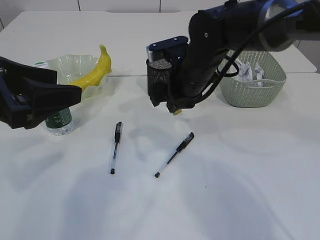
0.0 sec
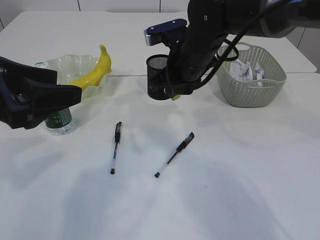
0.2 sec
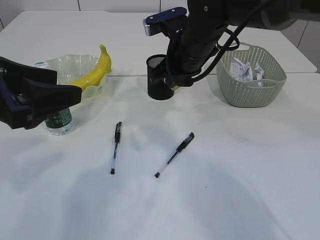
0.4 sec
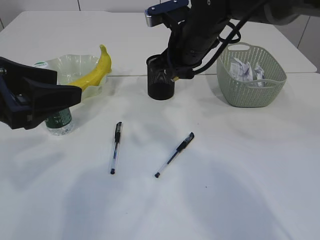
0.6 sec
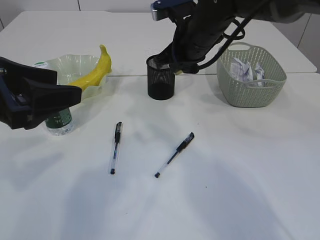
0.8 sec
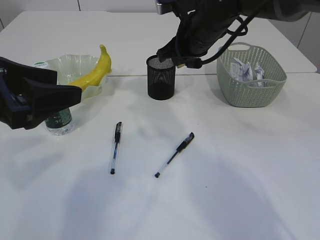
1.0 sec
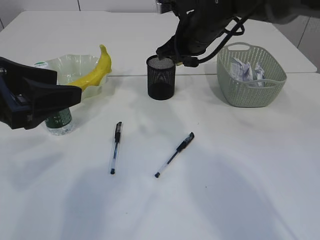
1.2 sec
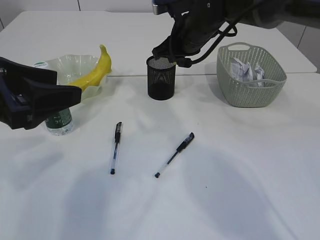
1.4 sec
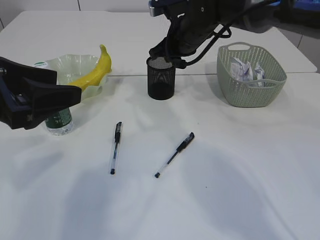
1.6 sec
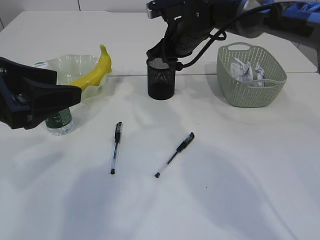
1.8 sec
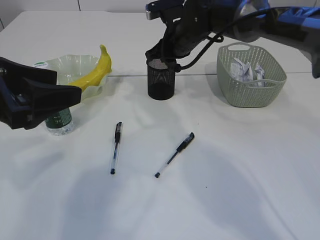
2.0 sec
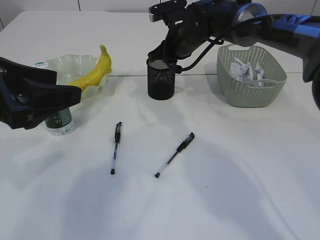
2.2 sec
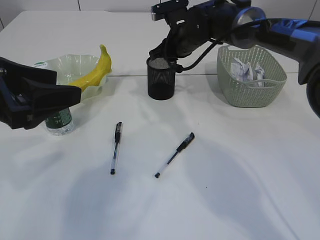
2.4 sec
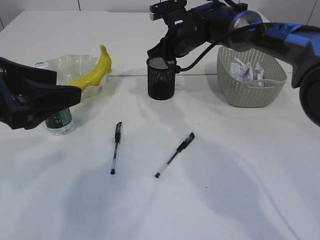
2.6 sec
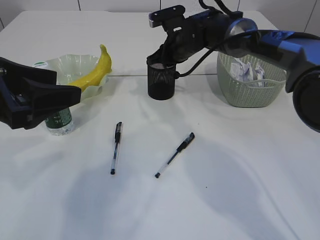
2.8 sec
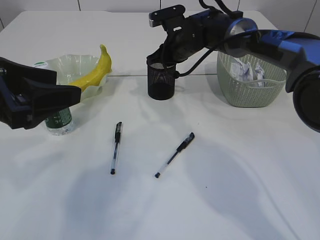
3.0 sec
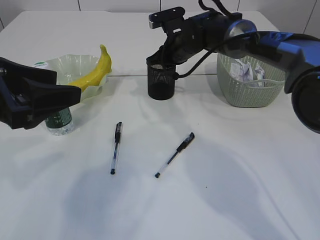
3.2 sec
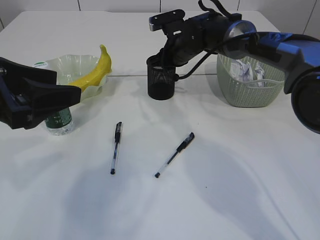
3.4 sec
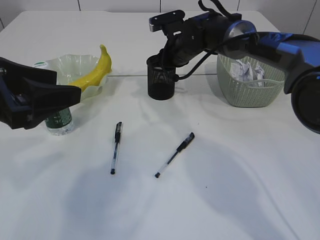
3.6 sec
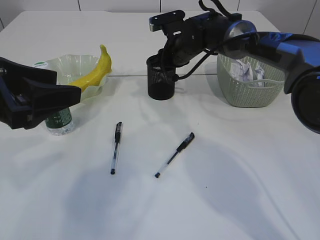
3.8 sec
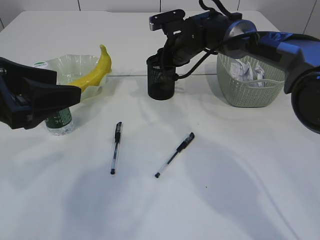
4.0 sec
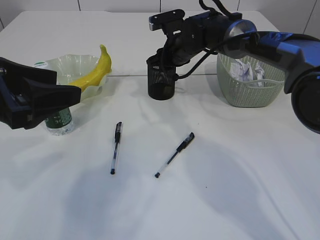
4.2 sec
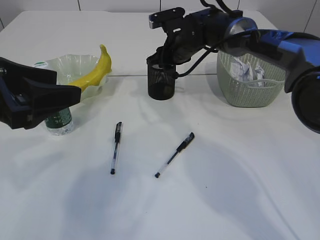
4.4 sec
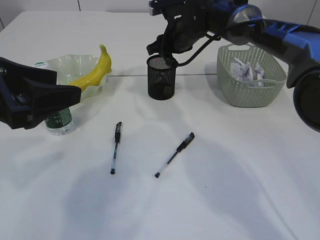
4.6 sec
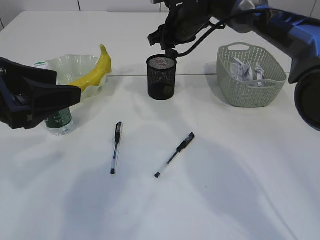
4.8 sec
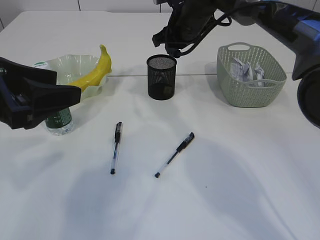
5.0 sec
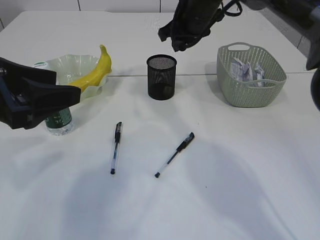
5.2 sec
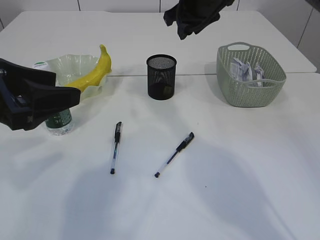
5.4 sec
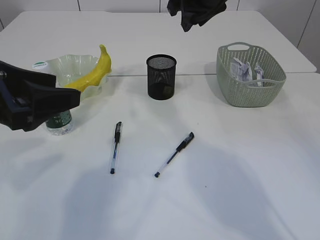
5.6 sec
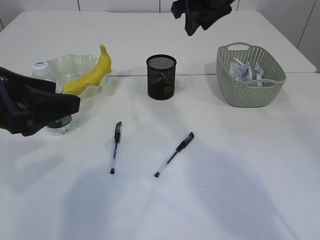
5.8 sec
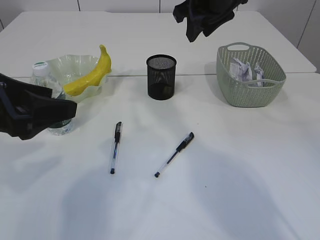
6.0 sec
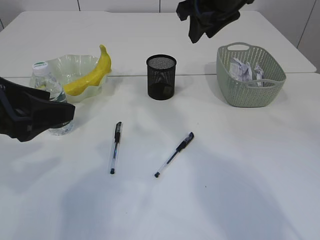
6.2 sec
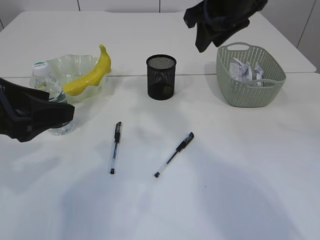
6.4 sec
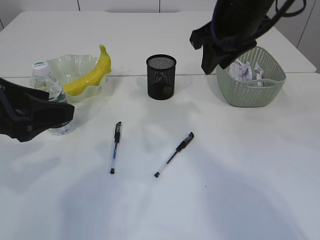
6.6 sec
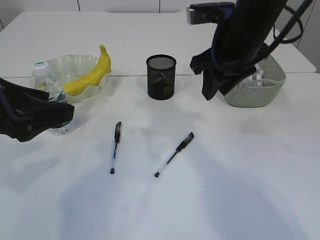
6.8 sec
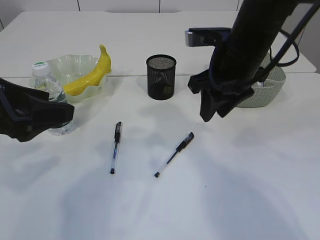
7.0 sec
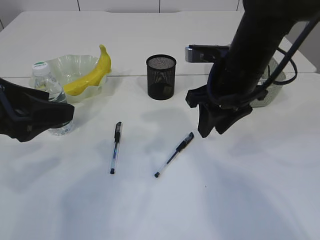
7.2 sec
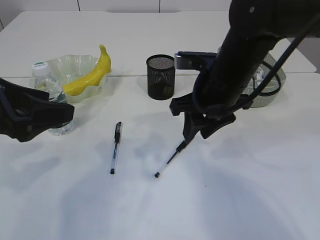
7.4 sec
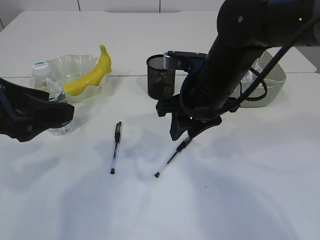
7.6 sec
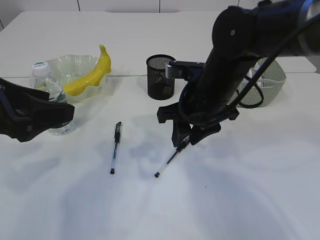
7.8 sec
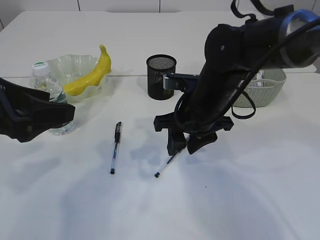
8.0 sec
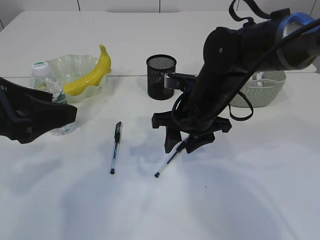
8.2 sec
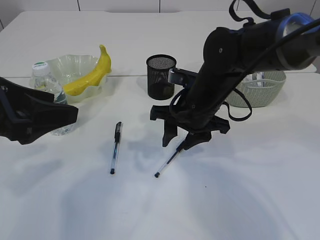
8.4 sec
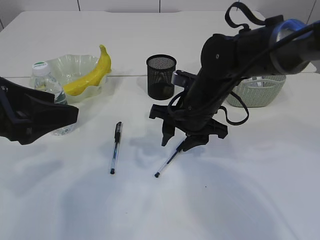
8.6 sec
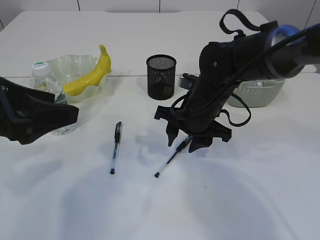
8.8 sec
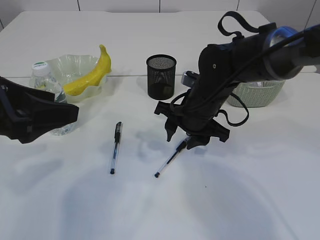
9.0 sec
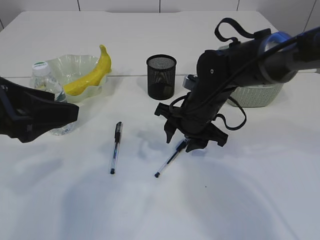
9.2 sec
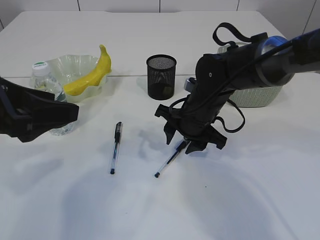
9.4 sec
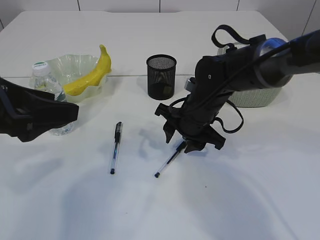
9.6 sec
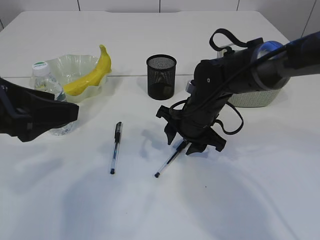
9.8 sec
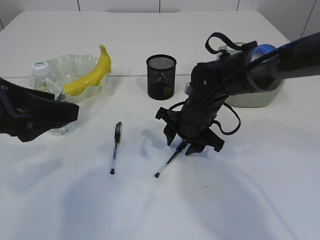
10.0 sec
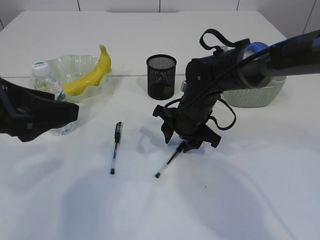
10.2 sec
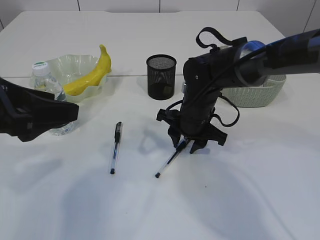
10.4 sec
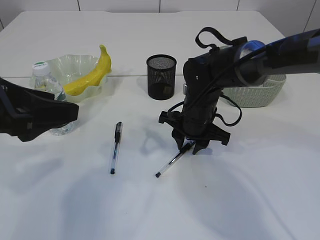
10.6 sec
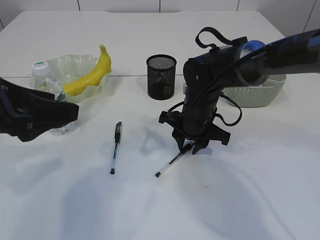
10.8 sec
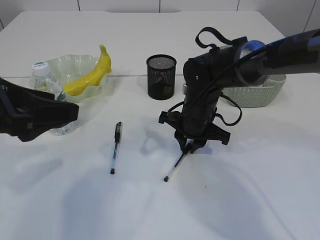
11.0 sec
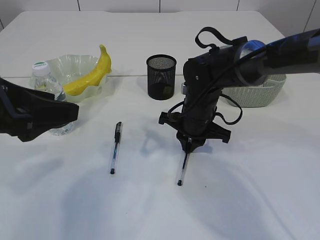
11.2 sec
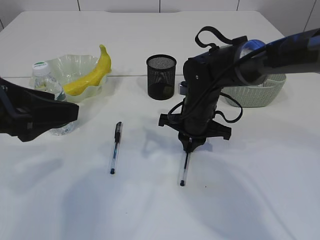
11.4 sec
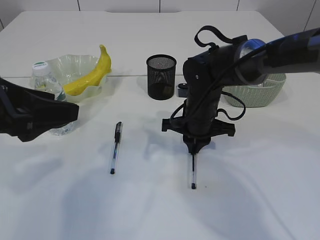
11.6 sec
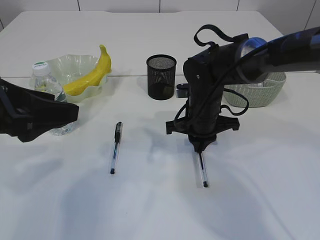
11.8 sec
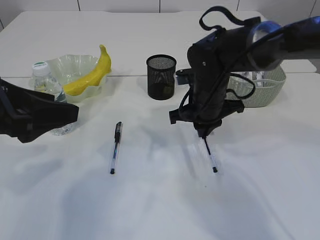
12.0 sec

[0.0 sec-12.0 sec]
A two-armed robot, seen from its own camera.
Step, 0.0 sec to 4.6 sec: Place the eraser into the pen holder.
0.0 sec to 1.6 sec: The right gripper travels forward by about 10 cm.
1.6 sec to 3.0 sec: The right gripper shifts approximately 5 cm forward.
3.0 sec to 4.4 sec: Both grippers stay put.
4.4 sec to 6.0 sec: The right gripper is displaced upward and backward by about 15 cm.
6.0 sec to 7.6 sec: The right gripper heads downward and backward, covering roughly 15 cm.
7.6 sec to 9.0 sec: The right gripper is displaced downward by some 5 cm.
9.0 sec to 10.4 sec: The grippers make only small movements.
10.4 sec to 12.0 sec: The right gripper closes.

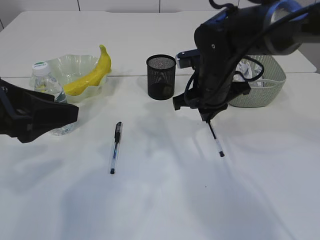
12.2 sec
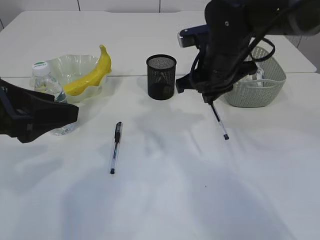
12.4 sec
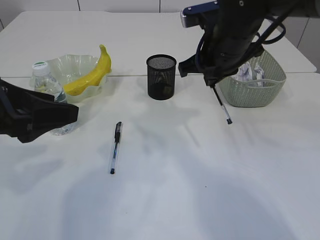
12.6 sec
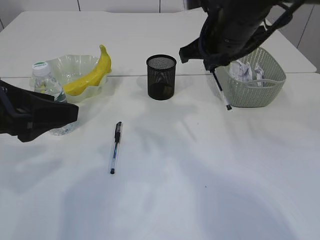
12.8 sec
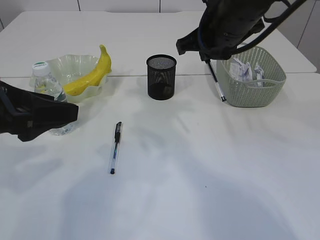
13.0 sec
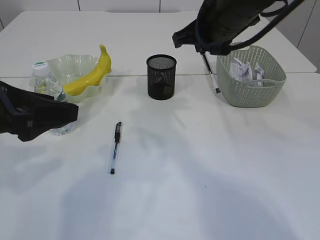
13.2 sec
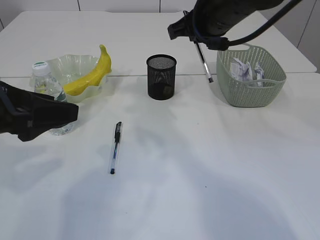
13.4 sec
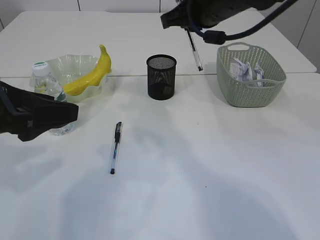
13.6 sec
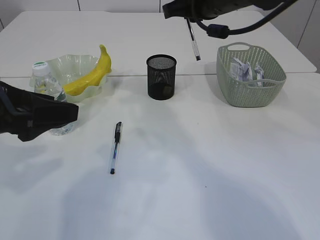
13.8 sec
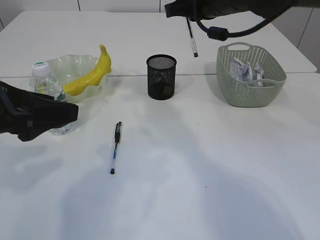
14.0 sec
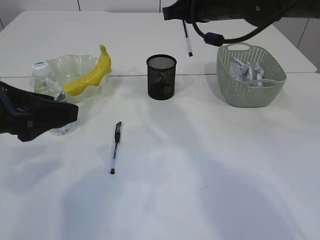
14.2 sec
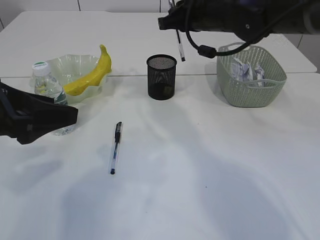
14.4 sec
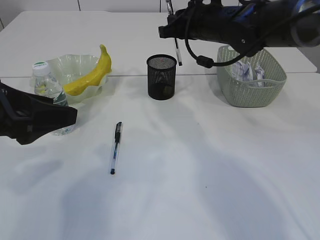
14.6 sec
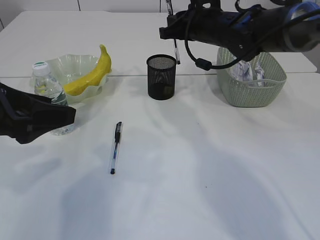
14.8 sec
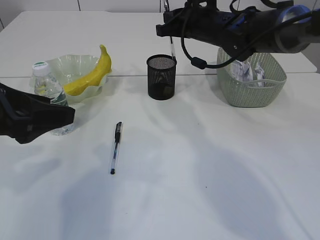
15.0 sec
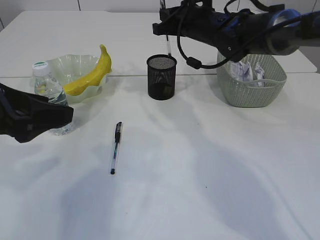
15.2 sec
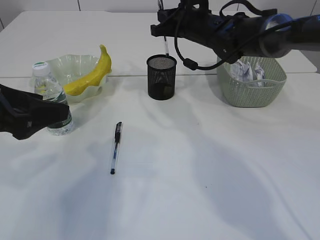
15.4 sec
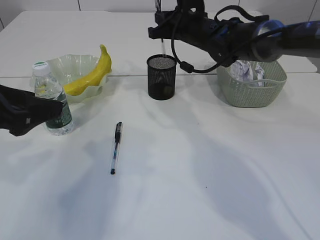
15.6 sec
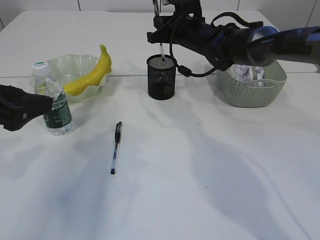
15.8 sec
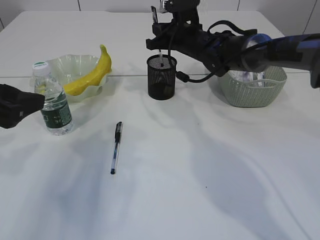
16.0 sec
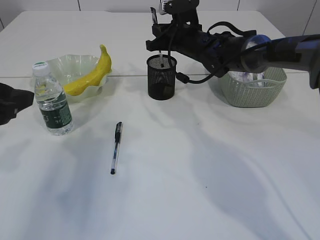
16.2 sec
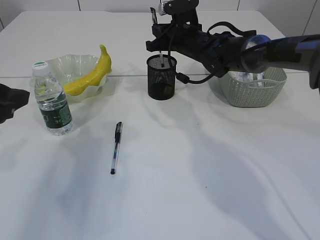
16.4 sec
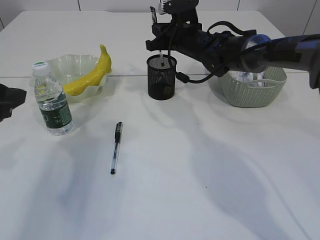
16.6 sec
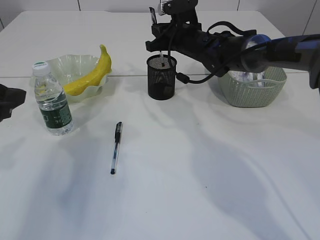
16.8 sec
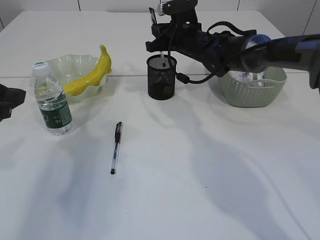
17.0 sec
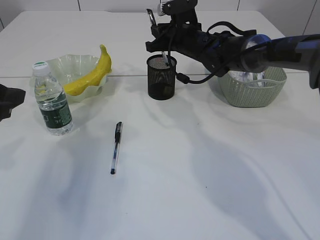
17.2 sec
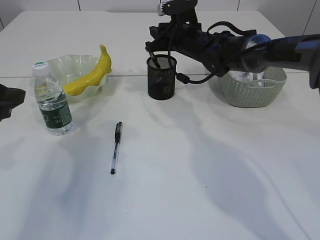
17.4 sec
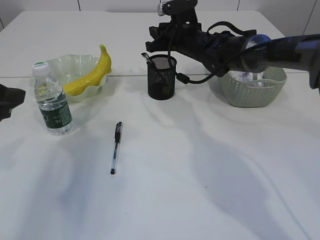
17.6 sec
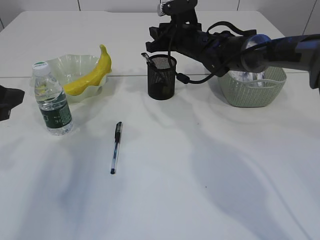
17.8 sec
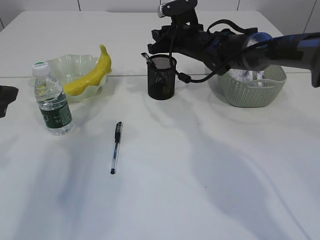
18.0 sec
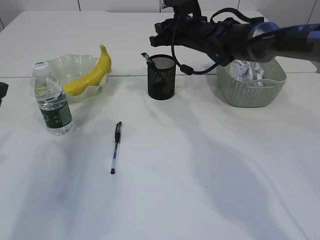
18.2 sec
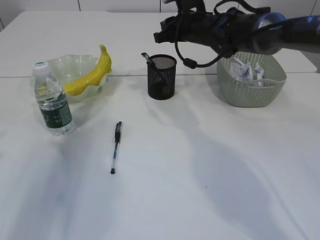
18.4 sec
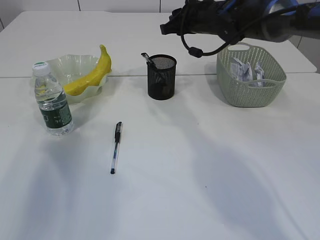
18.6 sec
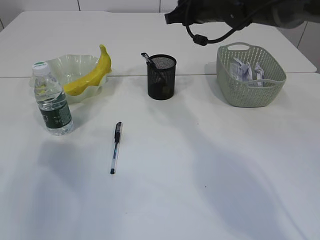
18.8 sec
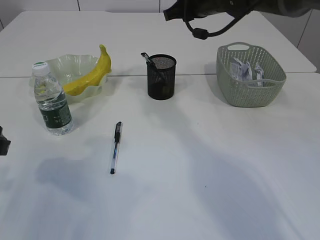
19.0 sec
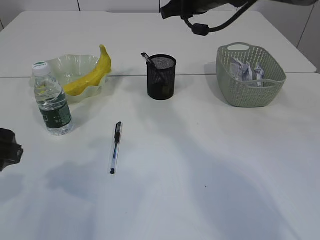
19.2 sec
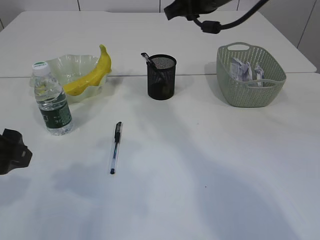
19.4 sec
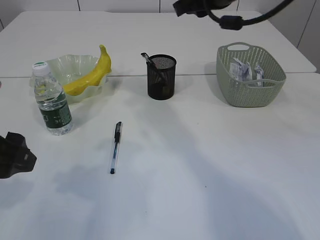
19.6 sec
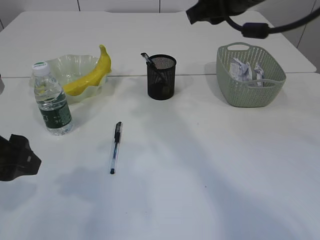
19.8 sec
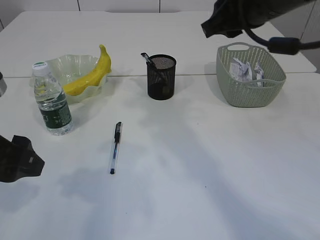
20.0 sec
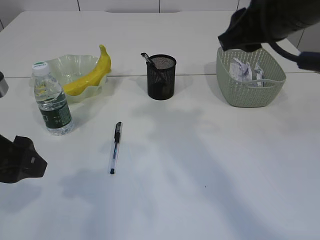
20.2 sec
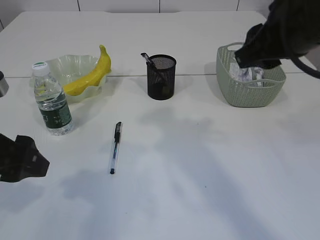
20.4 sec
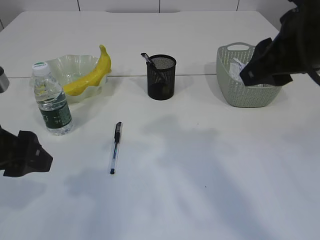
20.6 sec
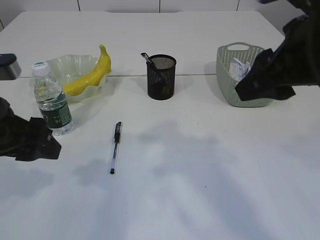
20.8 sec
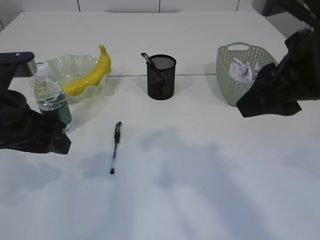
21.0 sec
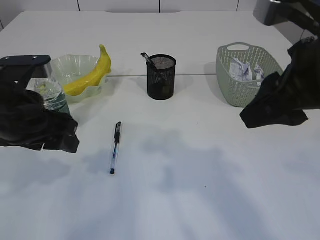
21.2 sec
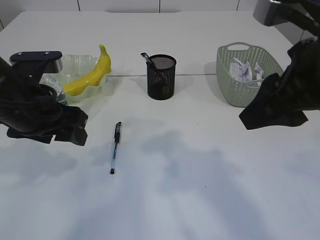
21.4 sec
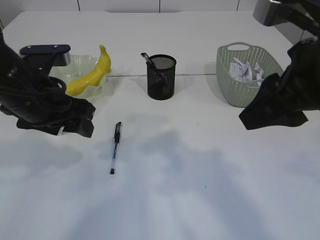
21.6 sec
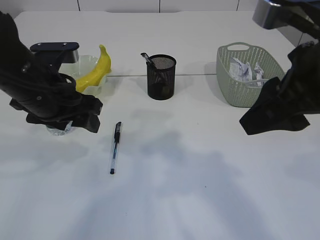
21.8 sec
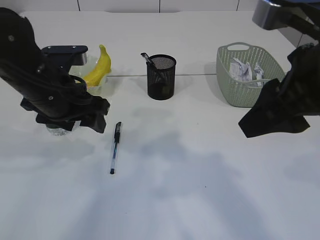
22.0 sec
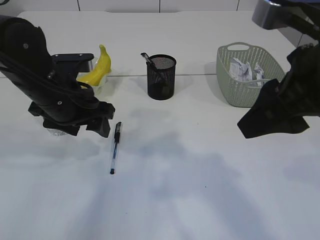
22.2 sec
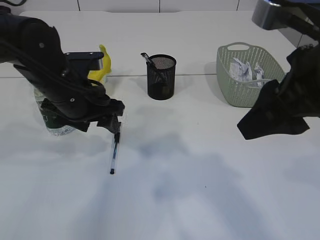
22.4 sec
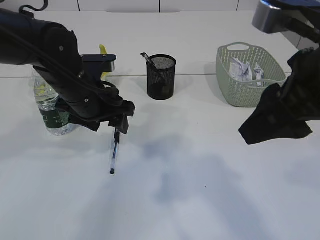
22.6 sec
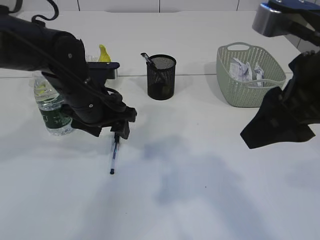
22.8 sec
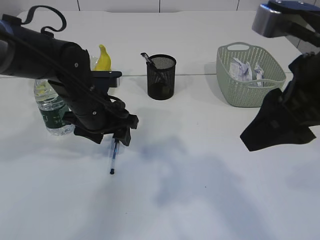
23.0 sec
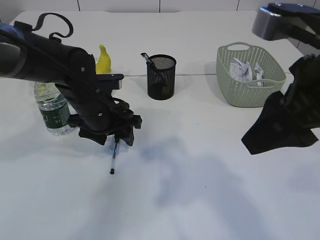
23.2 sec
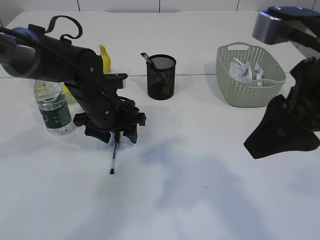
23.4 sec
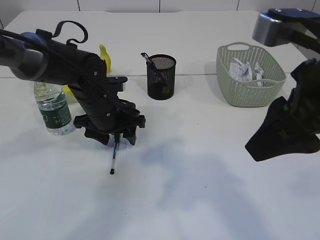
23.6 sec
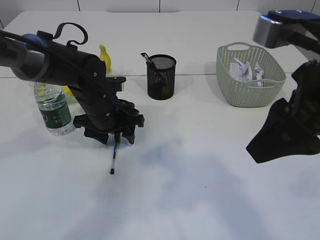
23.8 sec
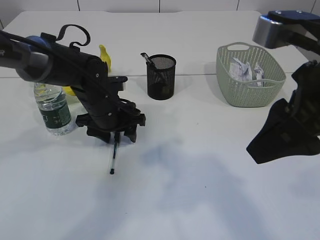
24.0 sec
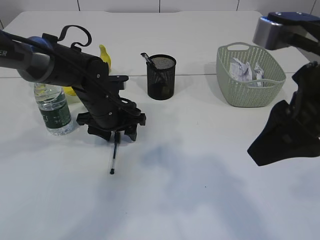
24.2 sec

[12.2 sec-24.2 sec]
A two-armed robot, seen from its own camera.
Step, 12.4 sec to 18.2 sec: Place the pen into the pen holder.
12.2 sec to 13.8 sec: The right gripper moves upward, about 15 cm.
13.8 sec to 15.2 sec: The right gripper shifts some 15 cm forward and downward.
15.2 sec to 16.6 sec: The right gripper changes place by some 5 cm.
16.6 sec to 18.2 sec: The right gripper opens up.
18.2 sec to 19.8 sec: The left gripper moves to the right, roughly 5 cm; the right gripper goes about 20 cm backward and upward.
19.8 sec to 21.2 sec: The right gripper goes roughly 15 cm backward; the left gripper goes approximately 5 cm forward.
21.2 sec to 22.6 sec: The left gripper goes roughly 10 cm forward and to the right.
22.6 sec to 24.2 sec: The left gripper travels downward and forward by about 10 cm.
